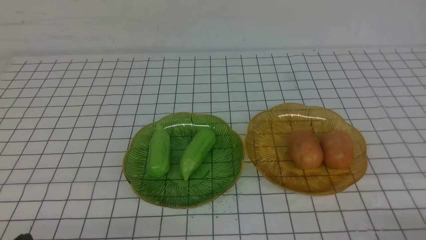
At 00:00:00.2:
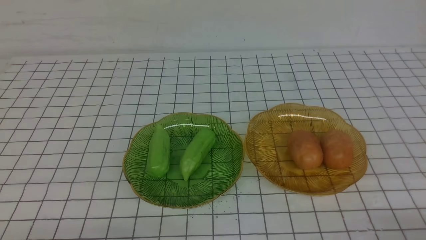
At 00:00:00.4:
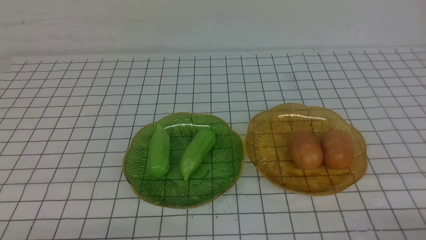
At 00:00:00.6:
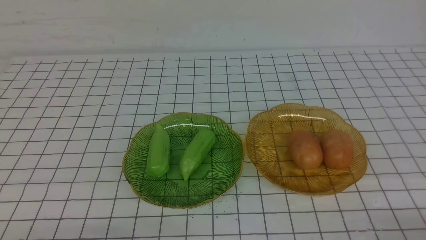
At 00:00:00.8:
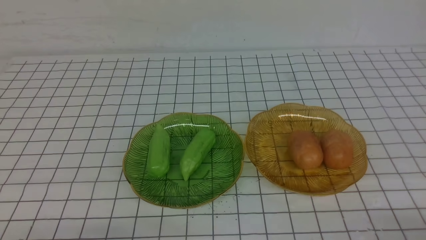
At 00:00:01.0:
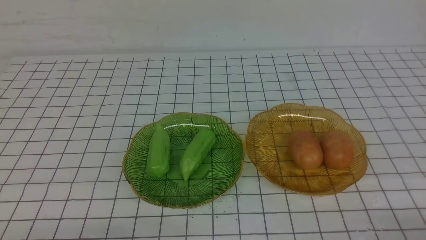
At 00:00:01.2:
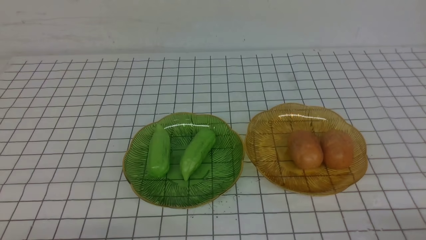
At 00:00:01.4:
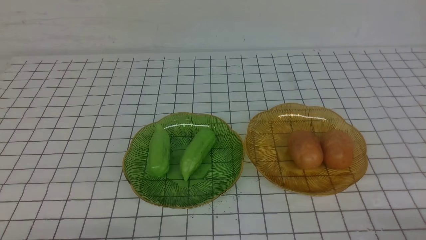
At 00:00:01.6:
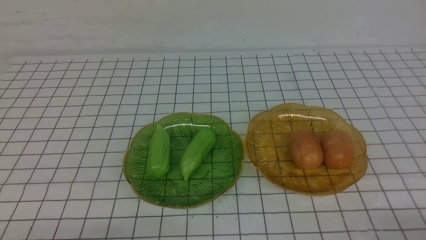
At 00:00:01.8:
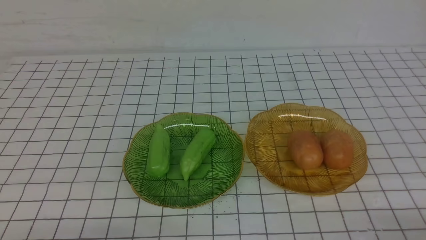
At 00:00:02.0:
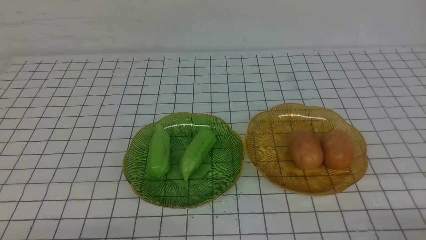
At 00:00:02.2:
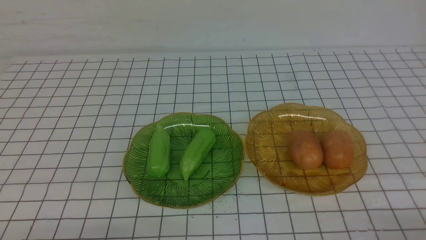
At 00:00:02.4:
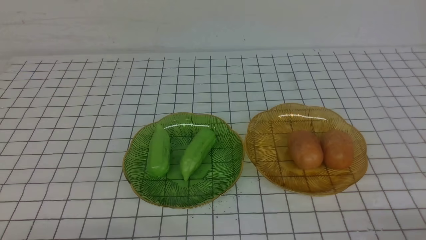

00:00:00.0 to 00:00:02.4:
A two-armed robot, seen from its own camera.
00:00:01.2 to 00:00:02.4: Neither gripper changes place.
